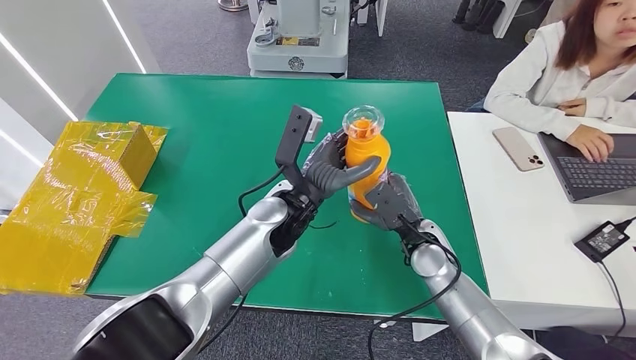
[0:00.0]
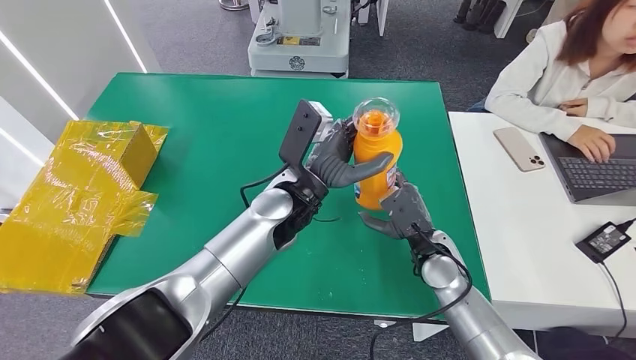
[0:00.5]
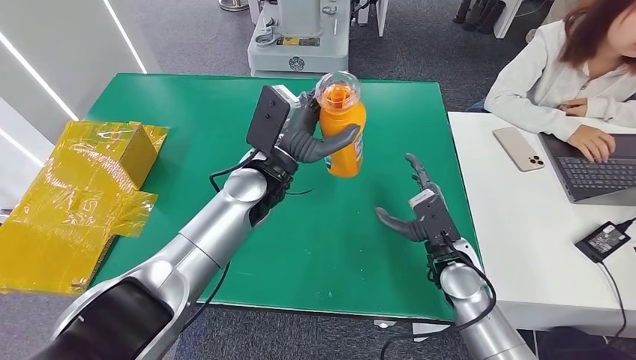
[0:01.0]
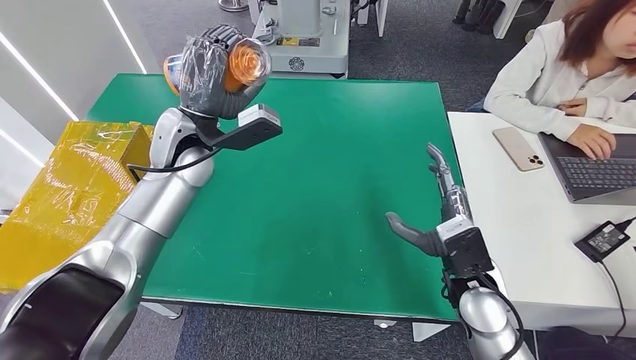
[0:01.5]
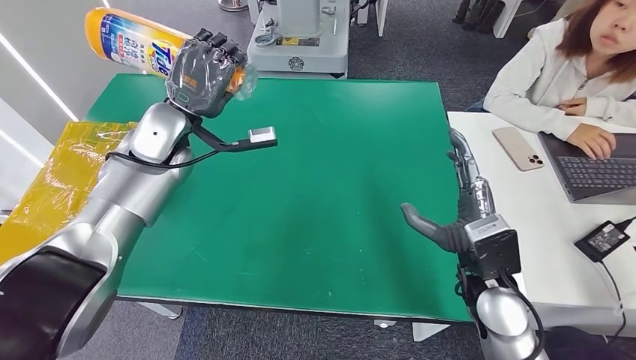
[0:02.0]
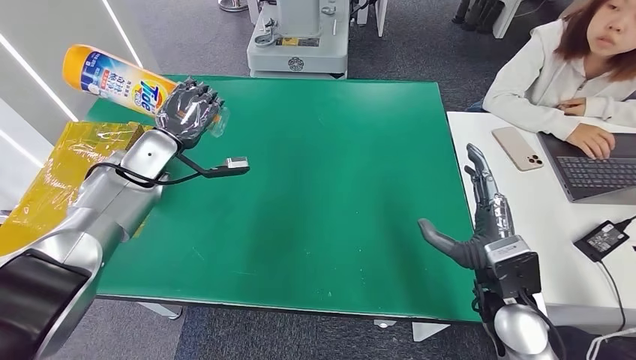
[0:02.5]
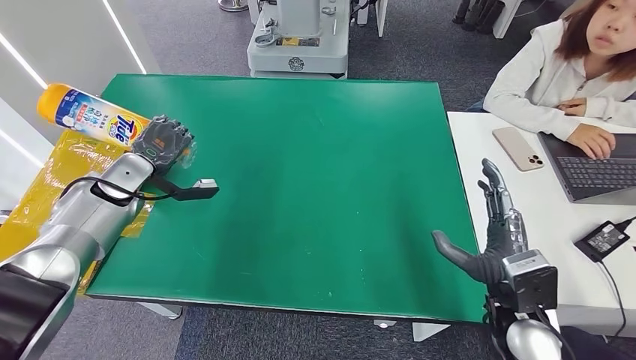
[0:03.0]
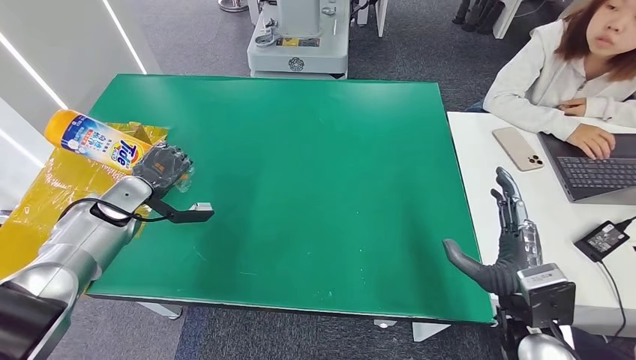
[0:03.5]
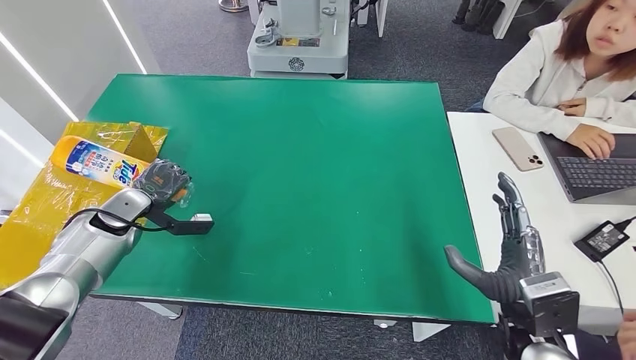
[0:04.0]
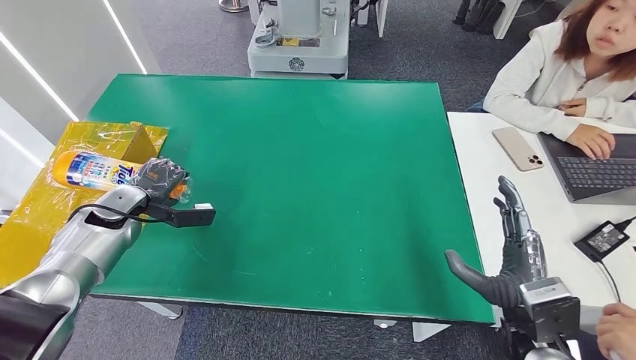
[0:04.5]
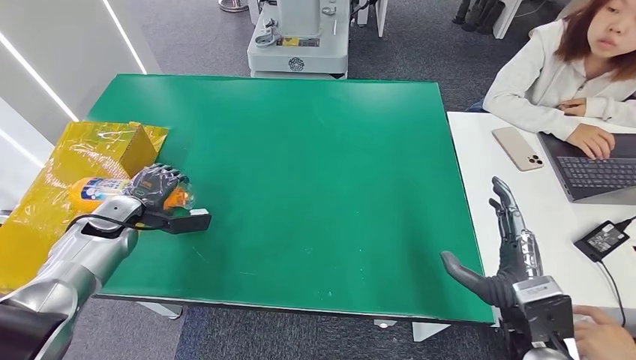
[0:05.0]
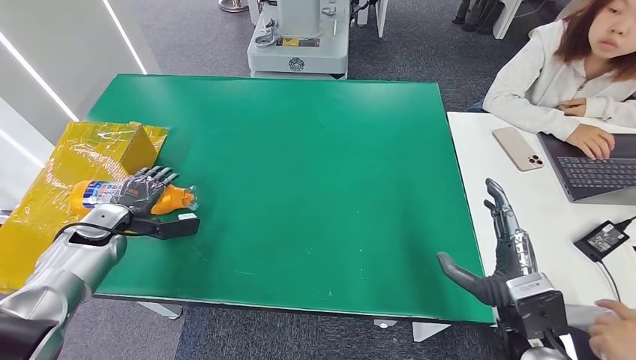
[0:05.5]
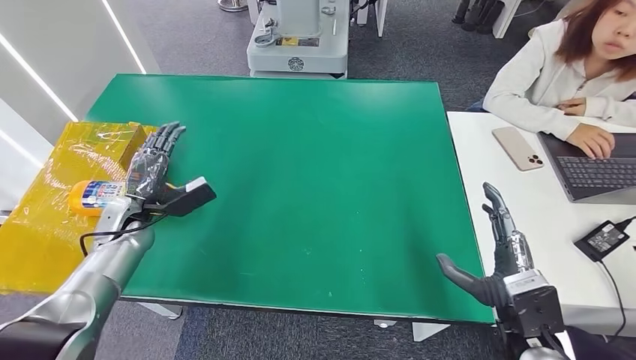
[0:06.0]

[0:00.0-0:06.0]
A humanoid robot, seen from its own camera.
Step, 0:00.0 to 0:06.0: Turn the bottle to the front side.
